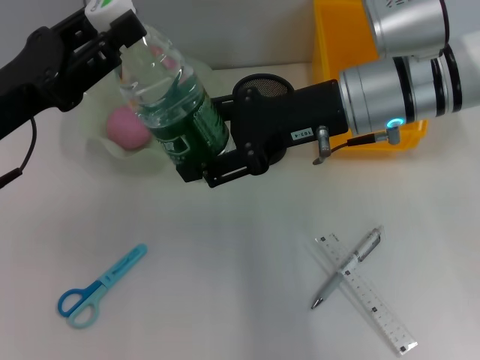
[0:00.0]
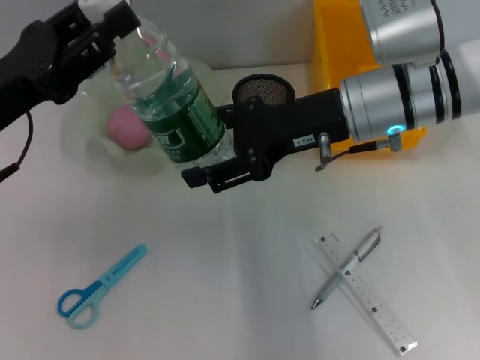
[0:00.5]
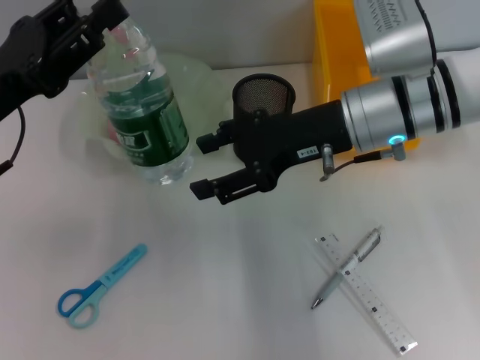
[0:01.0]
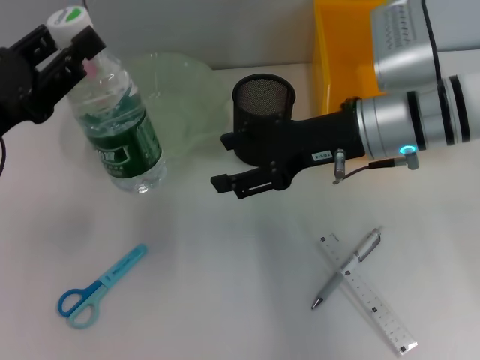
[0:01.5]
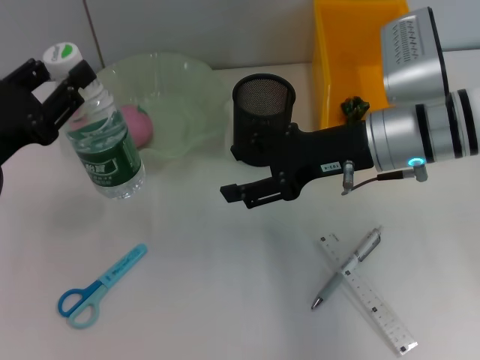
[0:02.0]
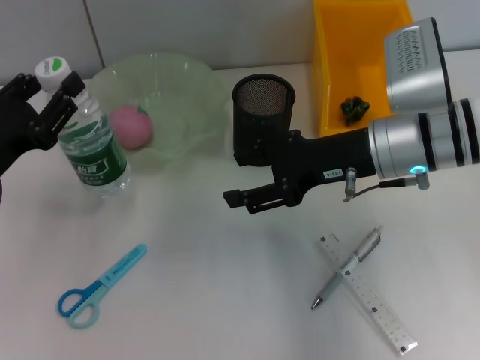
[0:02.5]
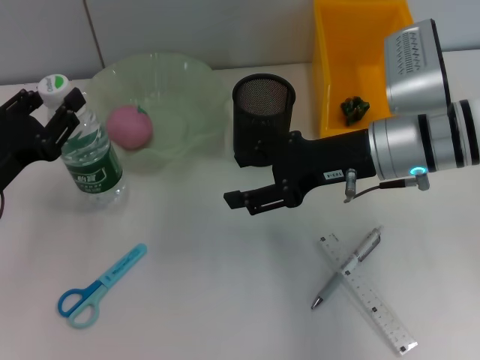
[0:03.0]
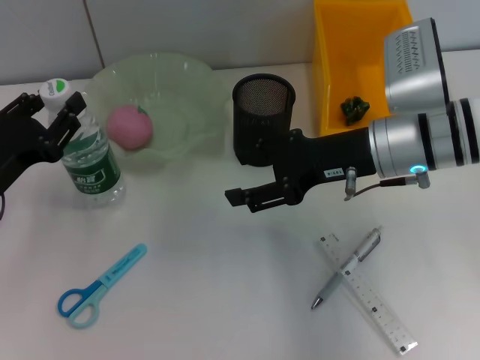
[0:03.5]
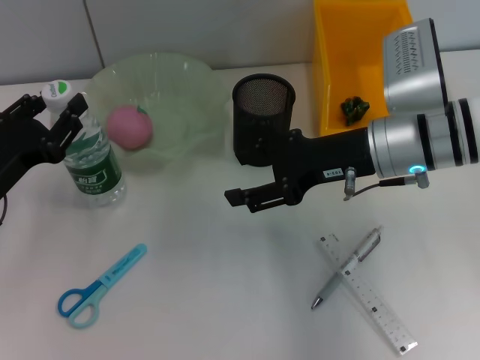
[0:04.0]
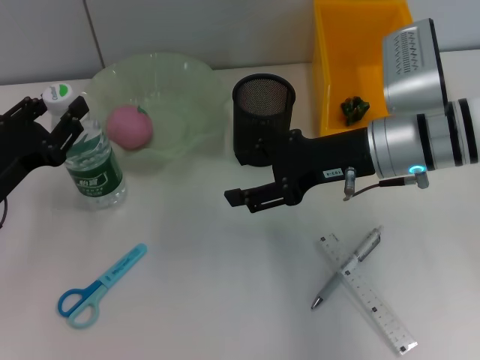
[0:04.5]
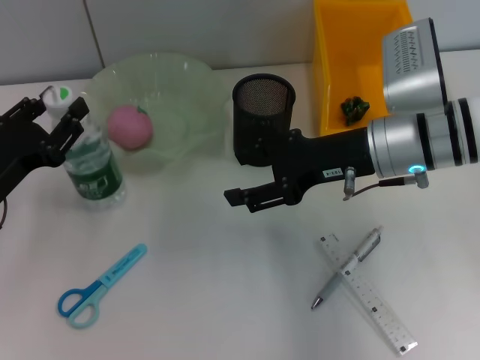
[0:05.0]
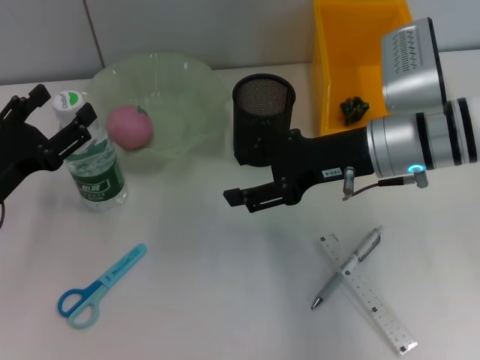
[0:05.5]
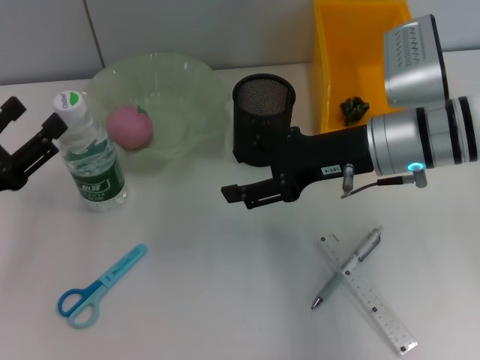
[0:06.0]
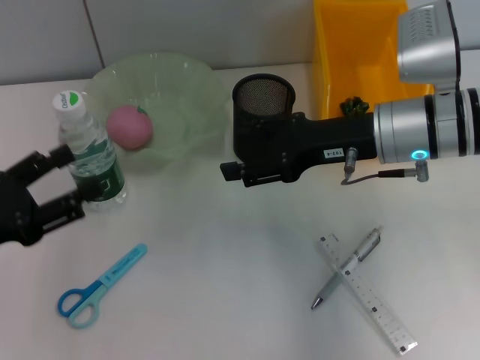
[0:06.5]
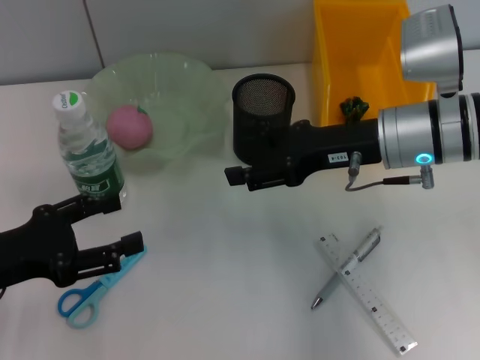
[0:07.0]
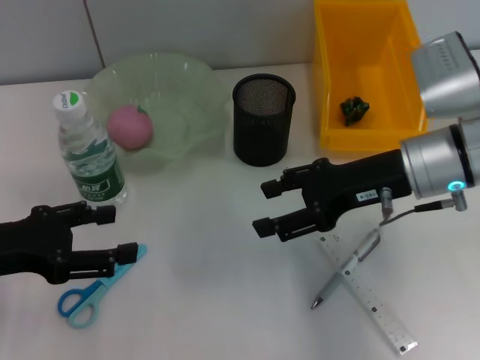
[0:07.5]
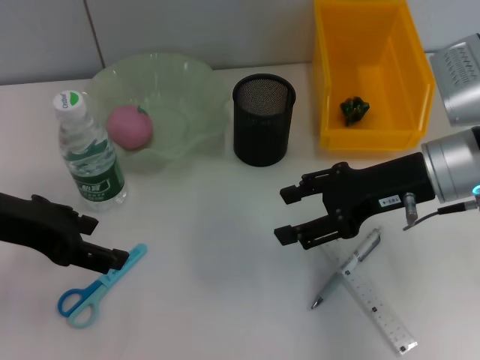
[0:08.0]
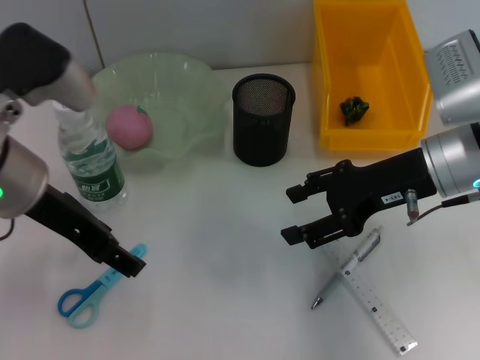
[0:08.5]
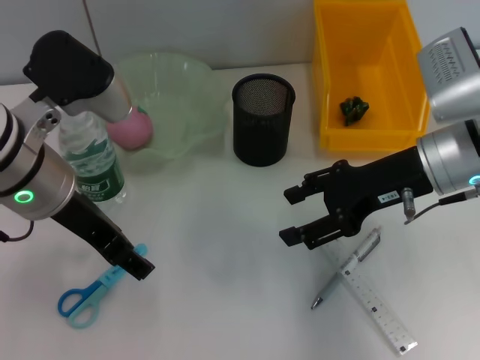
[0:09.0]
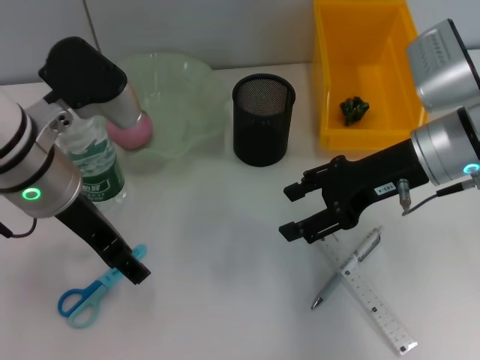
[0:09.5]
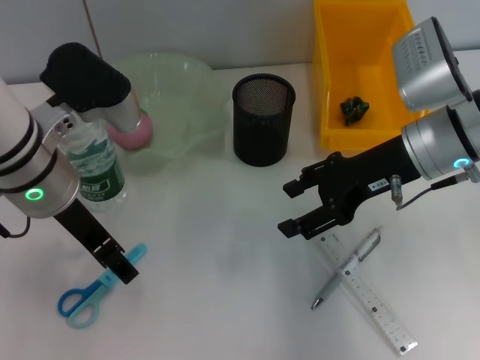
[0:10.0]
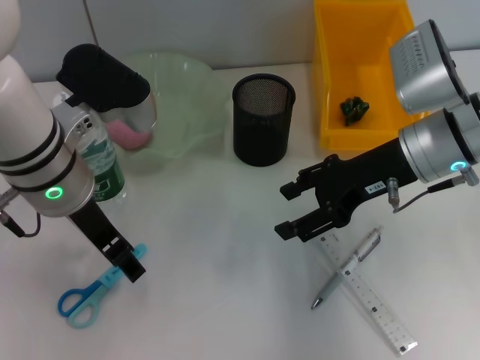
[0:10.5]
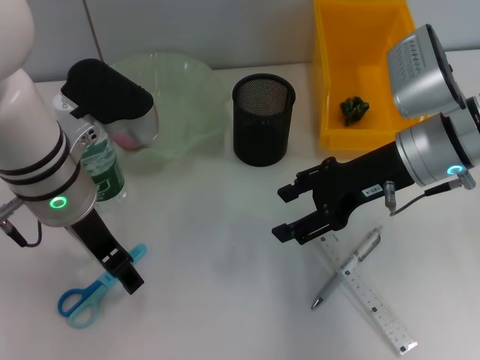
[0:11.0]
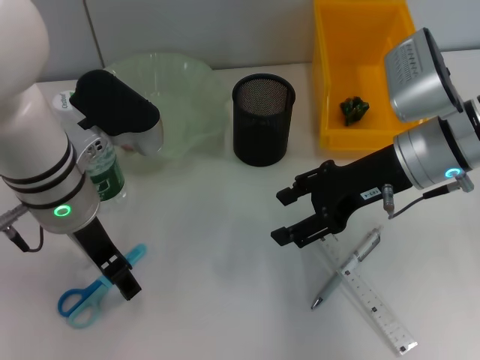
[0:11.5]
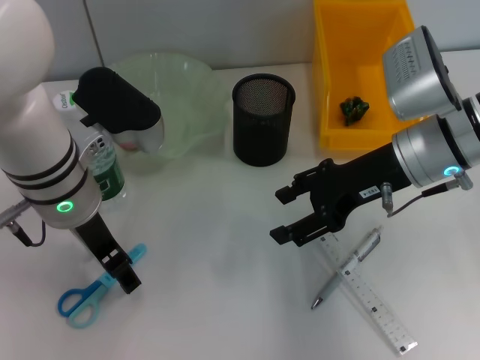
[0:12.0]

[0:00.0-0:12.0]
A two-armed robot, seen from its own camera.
Step, 0:01.5 to 0:05.0: Place the water bottle on the table with the left hand.
0:00.0 to 0:02.0: The right gripper shifts by some 5 cm. The left gripper ends up some 5 cm from where it was.
0:02.0 to 0:04.0: The grippers move only a little.
0:04.0 to 0:06.0: The left gripper opens.
0:06.0 to 0:08.0: The left gripper is displaced upward and to the right by some 15 cm.
0:08.0 to 0:10.0: The left gripper shifts roughly 10 cm to the right.
0:10.0 to 0:12.0: The grippers move only a little.

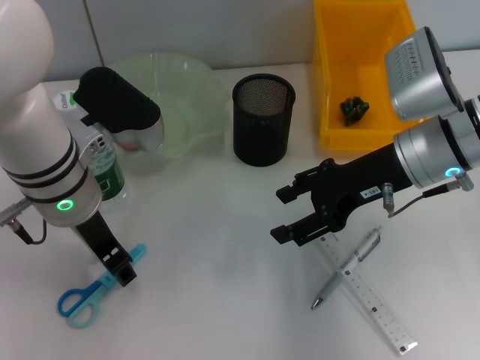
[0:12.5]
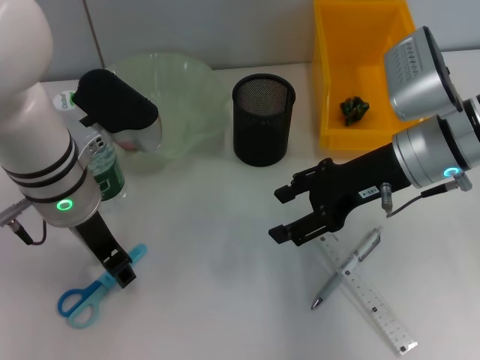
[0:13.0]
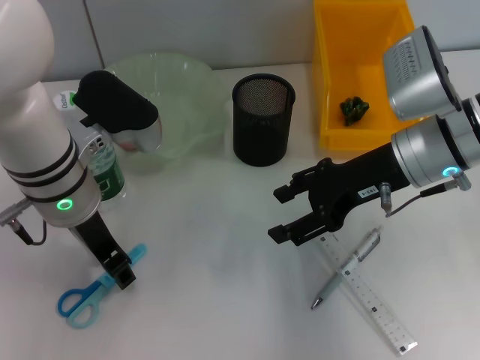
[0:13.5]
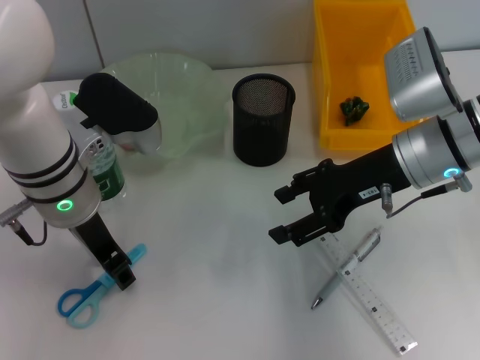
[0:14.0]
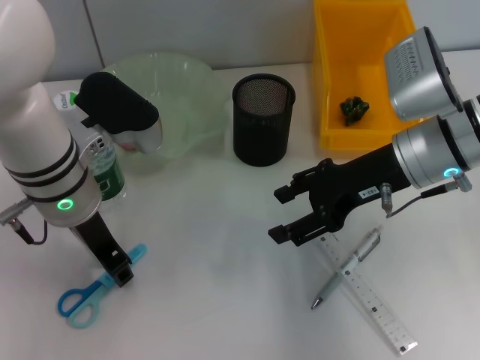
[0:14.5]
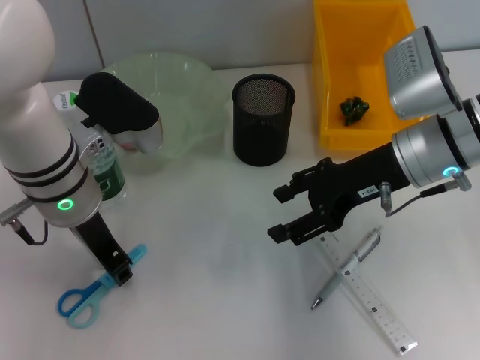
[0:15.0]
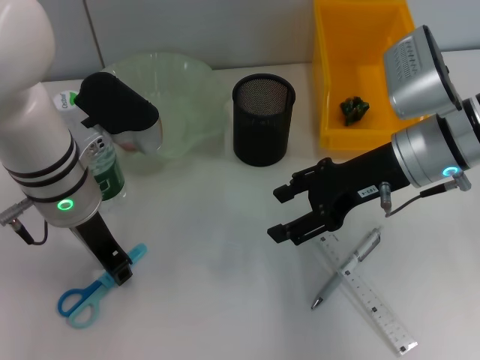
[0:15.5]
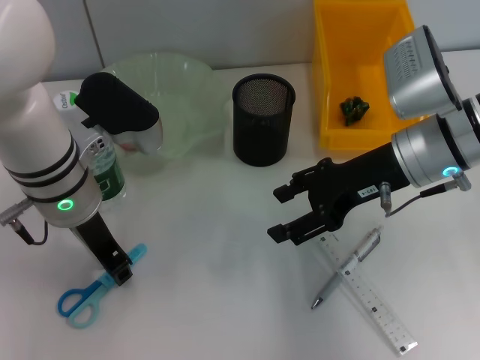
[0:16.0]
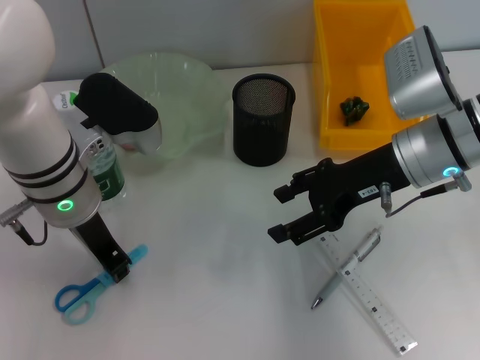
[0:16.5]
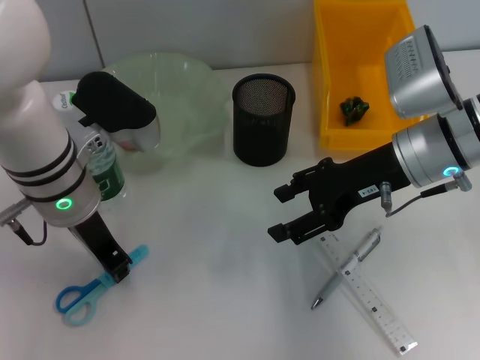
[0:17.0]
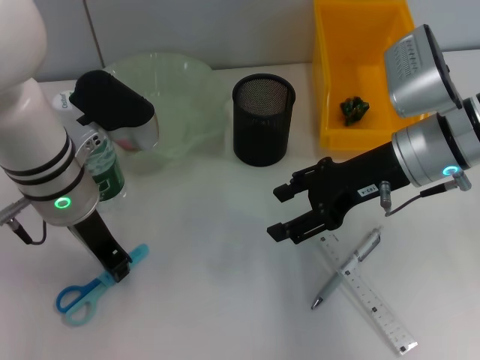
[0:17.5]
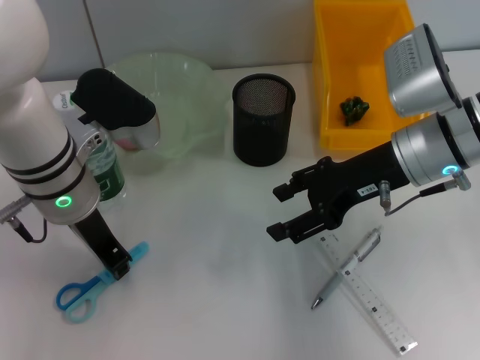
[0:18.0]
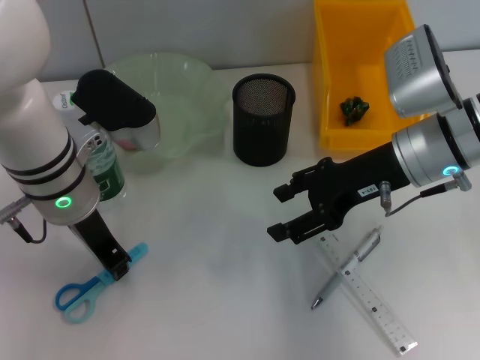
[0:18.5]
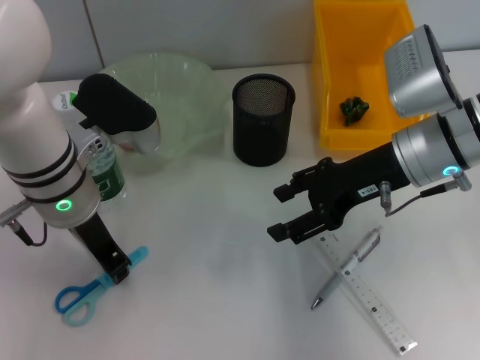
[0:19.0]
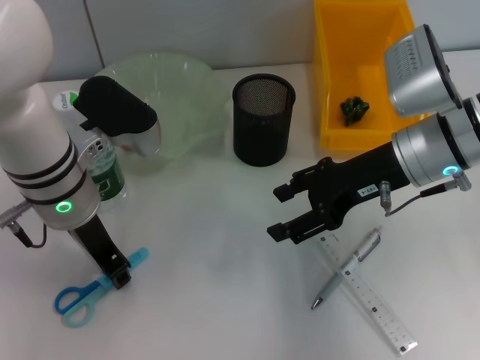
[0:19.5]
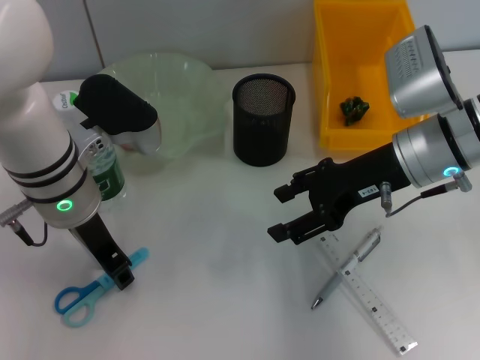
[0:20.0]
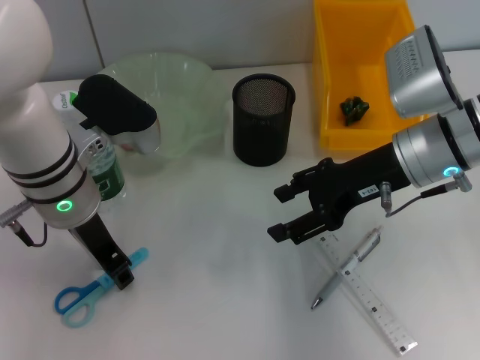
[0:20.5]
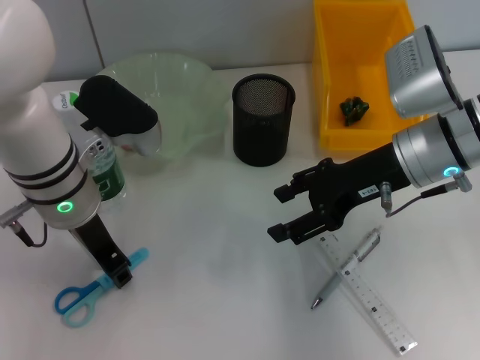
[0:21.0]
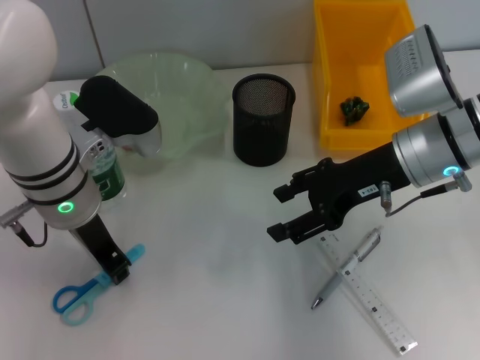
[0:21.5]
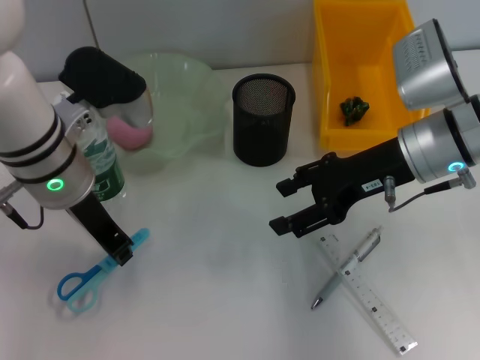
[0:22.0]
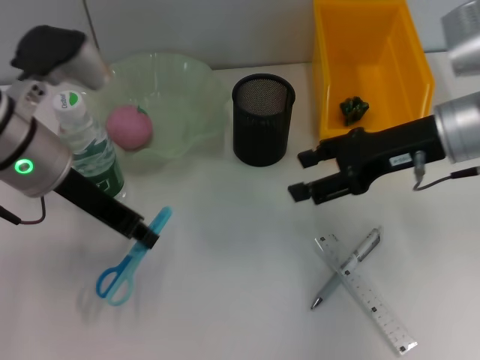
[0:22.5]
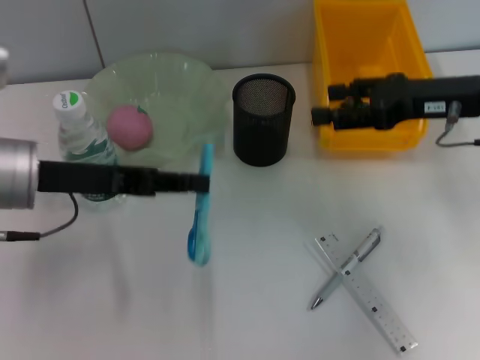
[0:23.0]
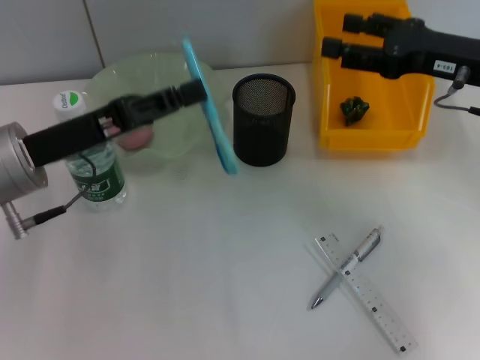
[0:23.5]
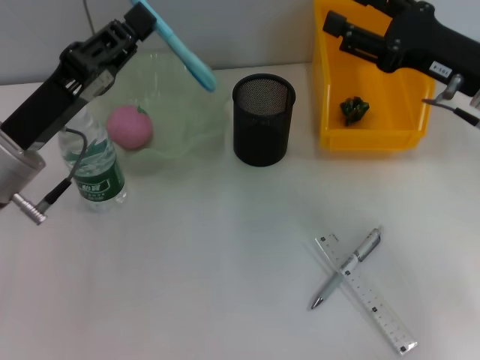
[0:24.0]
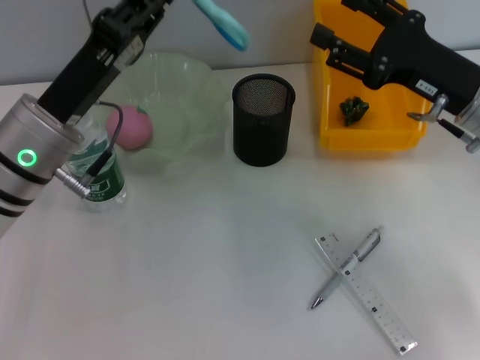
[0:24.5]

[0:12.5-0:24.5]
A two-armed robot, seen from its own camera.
Step, 0:12.5 to 0:21.0: Grab the blue scissors with the left hand.
0:12.5 to 0:14.5: Both grippers stay about where they are.
0:14.5 to 0:16.5: The left gripper closes.
0:16.5 to 0:20.5: The two grippers keep their place.
0:20.5 to 0:22.5: The left gripper shifts by roughly 5 cm, and closes.
0:22.5 to 0:24.5: The left gripper moves roughly 5 cm.

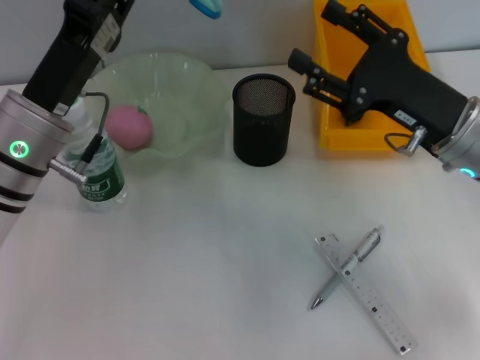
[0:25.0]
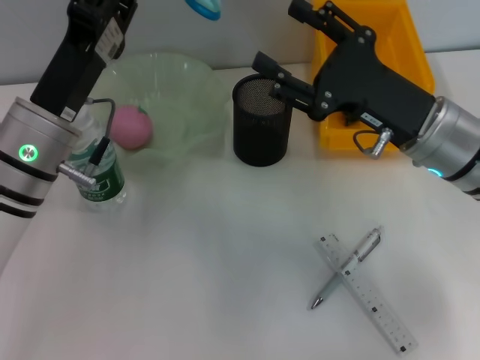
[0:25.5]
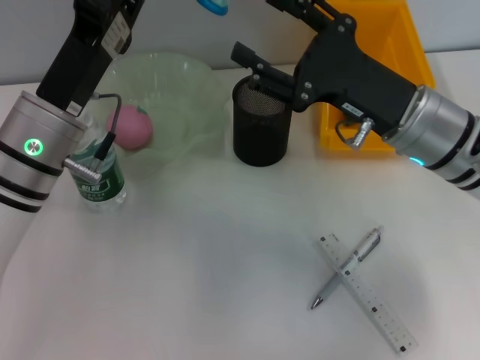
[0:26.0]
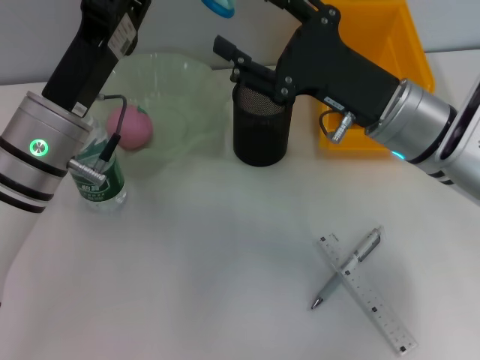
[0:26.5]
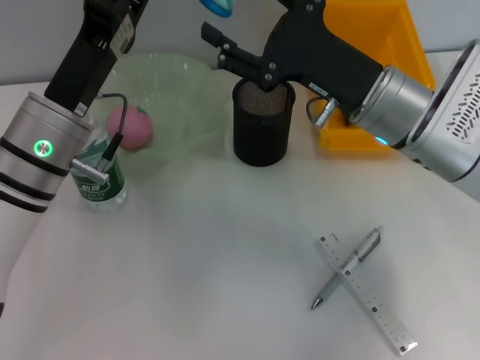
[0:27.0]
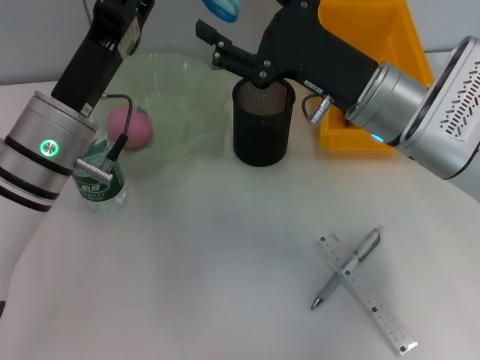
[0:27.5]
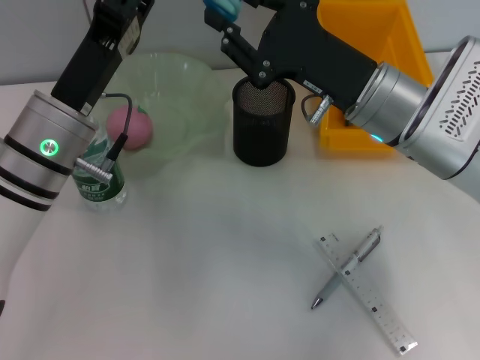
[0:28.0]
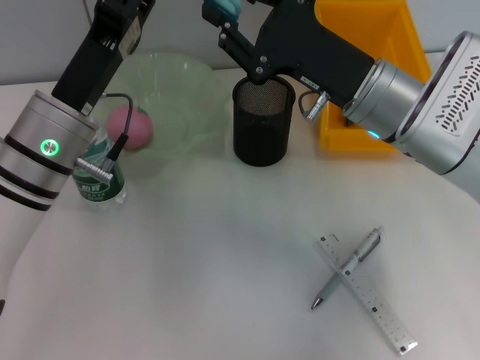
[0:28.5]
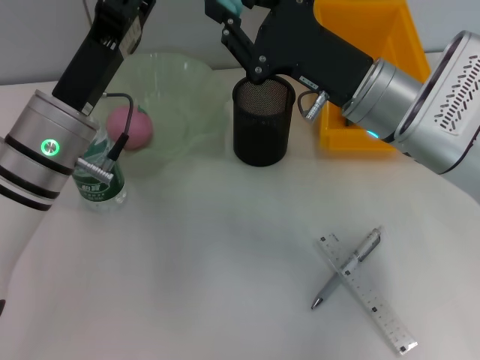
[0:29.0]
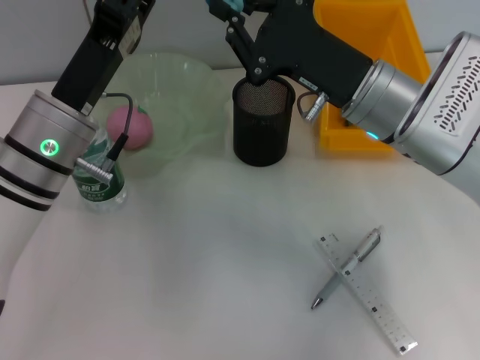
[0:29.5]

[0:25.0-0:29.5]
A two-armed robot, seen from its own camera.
0:25.0 to 0:27.0: The right gripper shifts about 5 cm to the left.
0:27.0 to 0:29.5: The right gripper closes its fingers.
